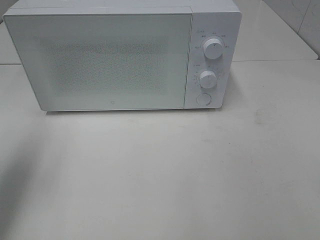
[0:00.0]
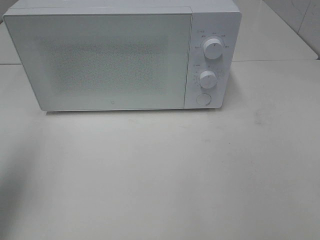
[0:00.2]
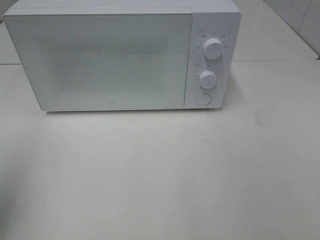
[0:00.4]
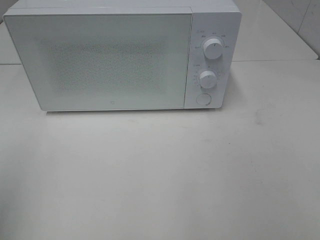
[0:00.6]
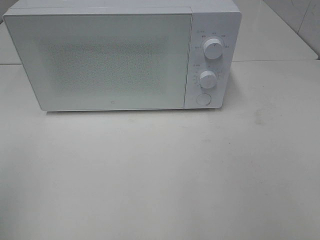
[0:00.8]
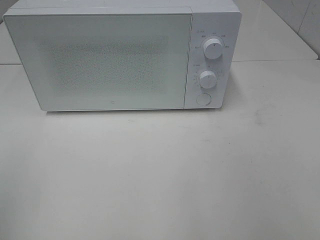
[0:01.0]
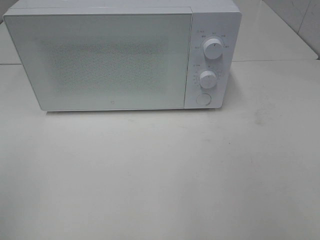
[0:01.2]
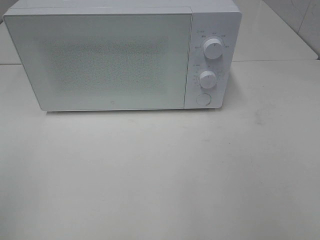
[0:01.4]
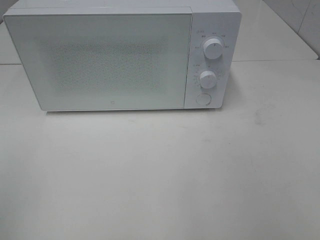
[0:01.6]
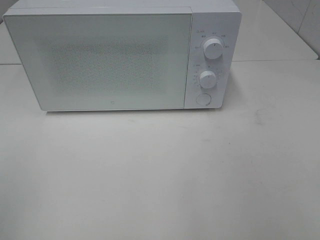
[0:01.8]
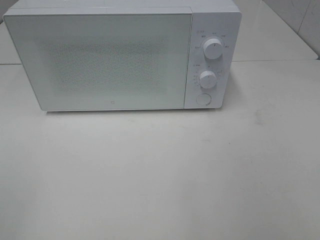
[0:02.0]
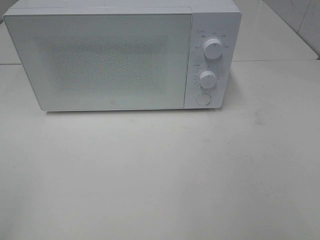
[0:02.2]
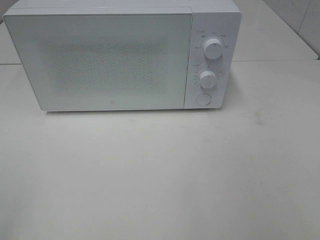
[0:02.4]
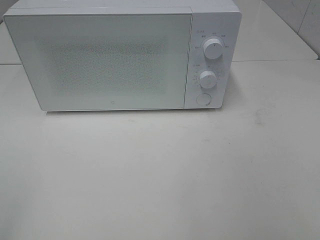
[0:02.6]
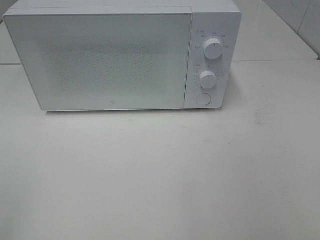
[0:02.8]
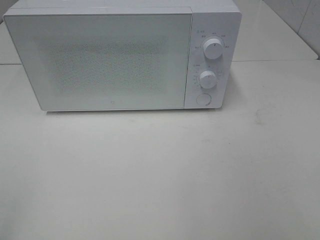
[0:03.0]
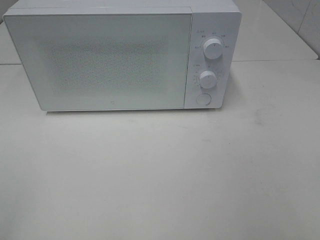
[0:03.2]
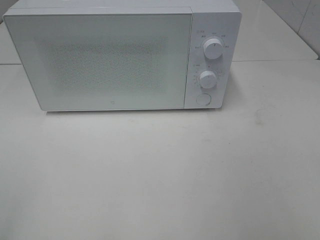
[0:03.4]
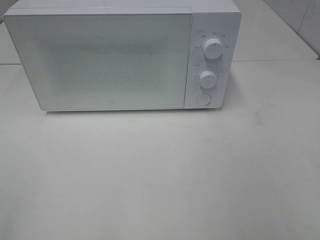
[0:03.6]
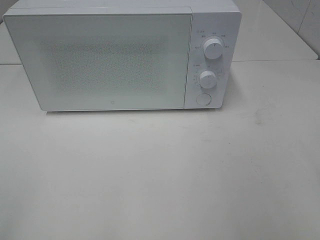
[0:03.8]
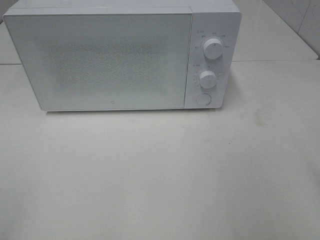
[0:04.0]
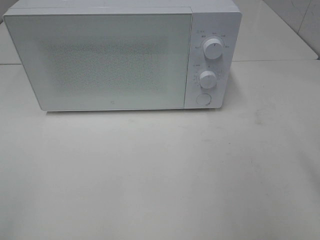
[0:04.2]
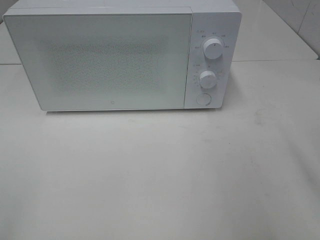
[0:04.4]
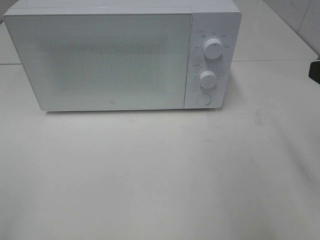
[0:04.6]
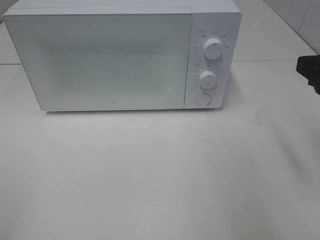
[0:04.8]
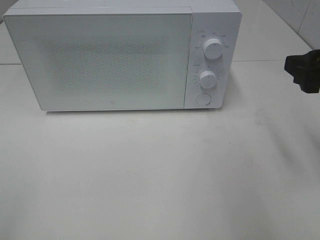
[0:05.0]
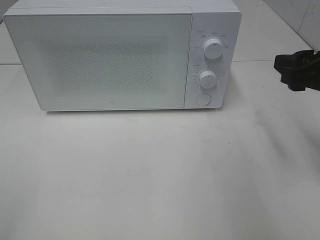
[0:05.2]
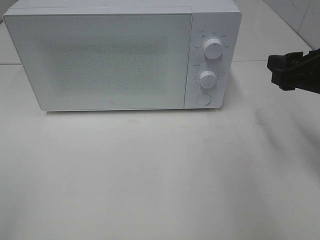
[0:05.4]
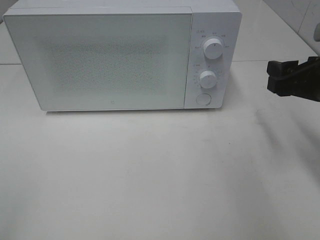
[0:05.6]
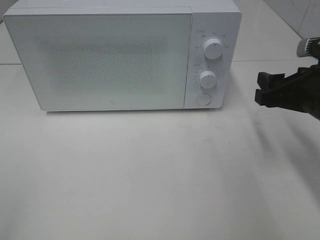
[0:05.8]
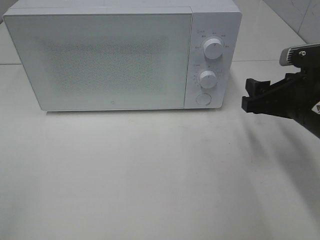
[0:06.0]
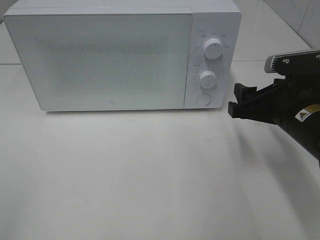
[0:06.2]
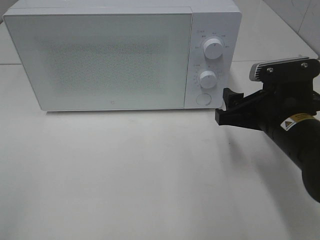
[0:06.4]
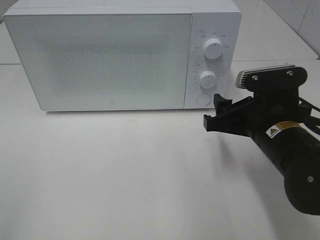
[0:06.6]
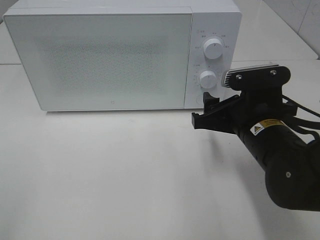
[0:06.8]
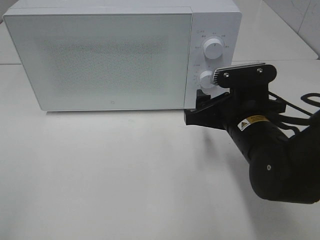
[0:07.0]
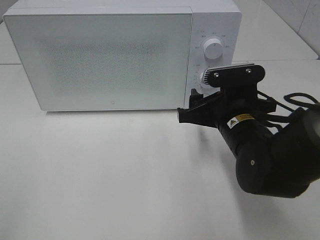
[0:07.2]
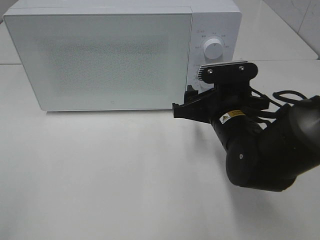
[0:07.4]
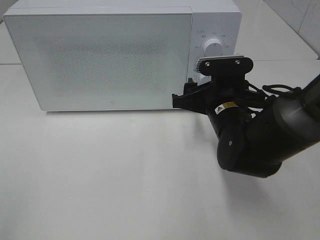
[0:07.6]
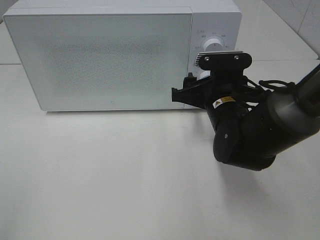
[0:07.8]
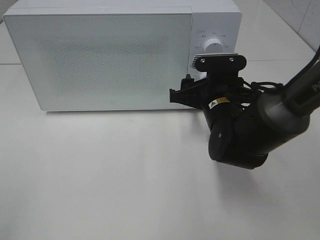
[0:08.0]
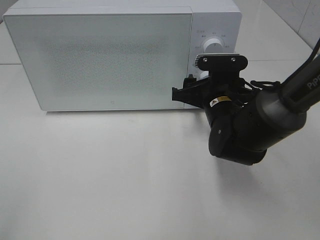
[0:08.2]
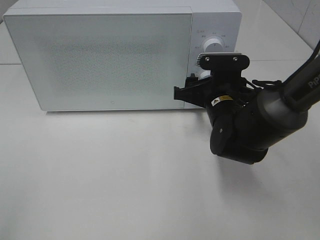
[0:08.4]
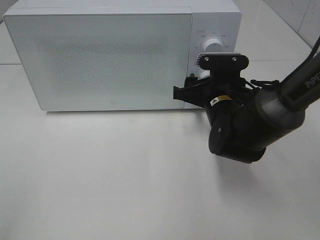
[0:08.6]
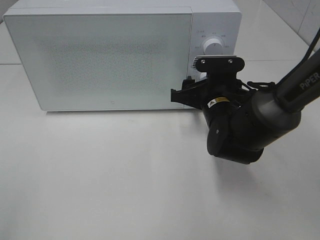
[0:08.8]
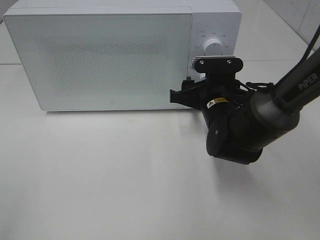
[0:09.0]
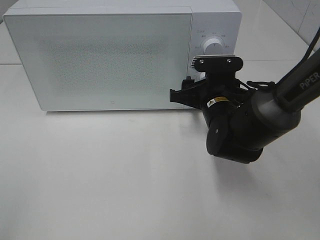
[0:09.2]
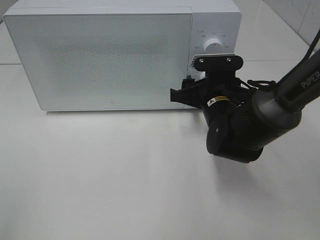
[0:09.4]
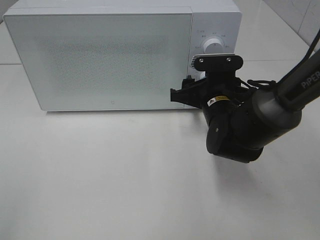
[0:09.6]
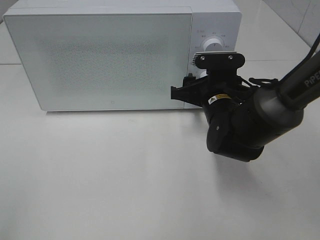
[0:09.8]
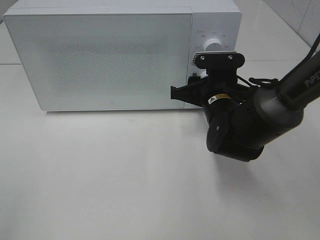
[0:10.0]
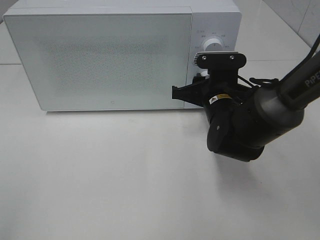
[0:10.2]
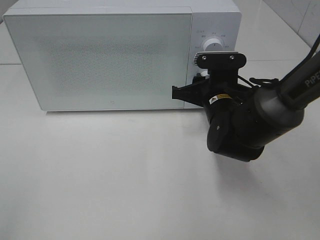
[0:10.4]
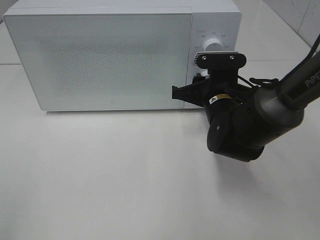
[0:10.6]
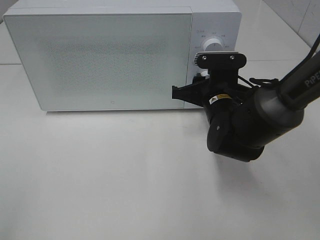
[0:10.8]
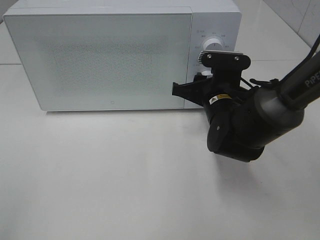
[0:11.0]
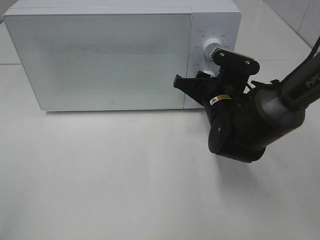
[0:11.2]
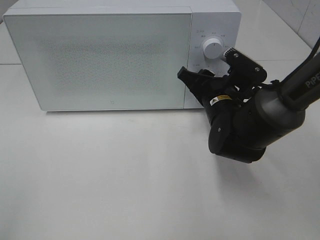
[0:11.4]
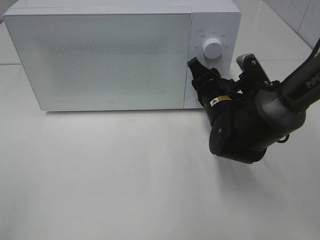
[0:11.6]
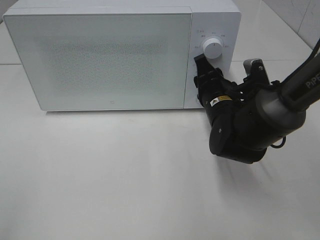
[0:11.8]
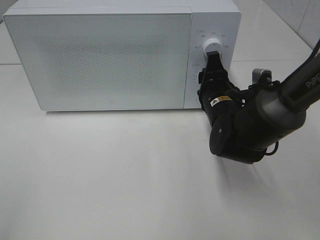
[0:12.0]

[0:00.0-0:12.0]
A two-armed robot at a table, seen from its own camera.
Task of the whole recording: Heat the burger.
0:00.0 to 0:01.6: The left gripper shifts roughly 15 cm backward.
0:04.4 to 0:06.0: The right gripper shifts about 15 cm downward and forward.
0:06.0 to 0:07.6: The right gripper moves to the left, roughly 10 cm.
0:07.6 to 0:09.0: The grippers stay close to where they were, moving slightly.
0:09.0 to 0:10.4: Neither gripper changes place.

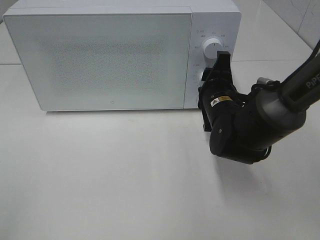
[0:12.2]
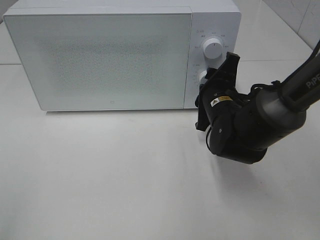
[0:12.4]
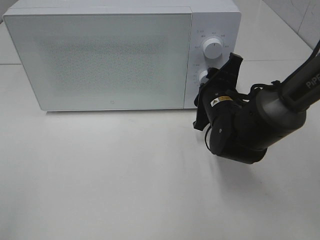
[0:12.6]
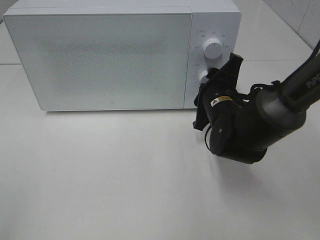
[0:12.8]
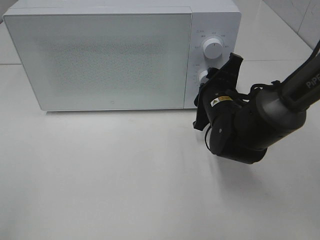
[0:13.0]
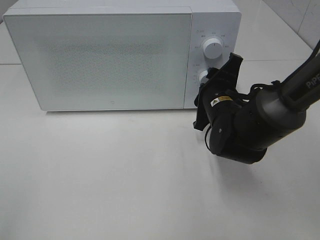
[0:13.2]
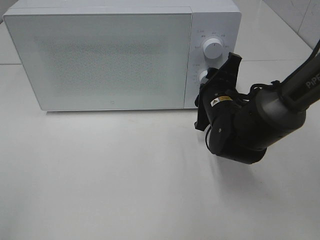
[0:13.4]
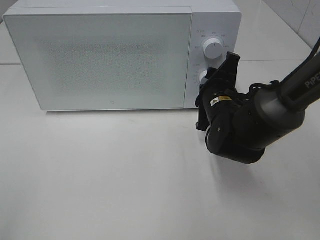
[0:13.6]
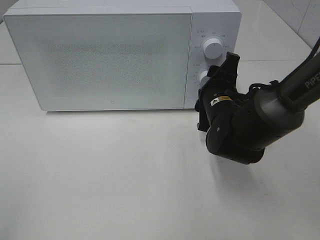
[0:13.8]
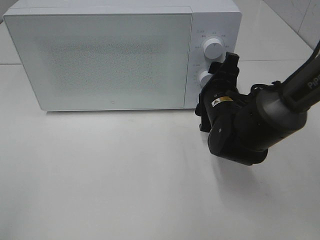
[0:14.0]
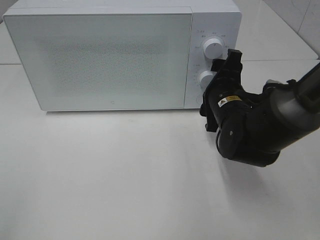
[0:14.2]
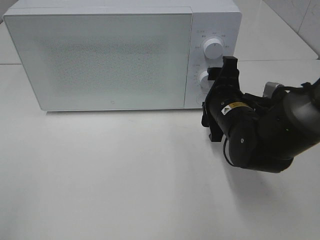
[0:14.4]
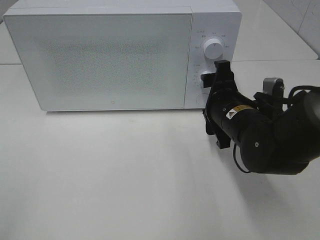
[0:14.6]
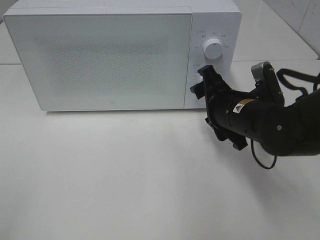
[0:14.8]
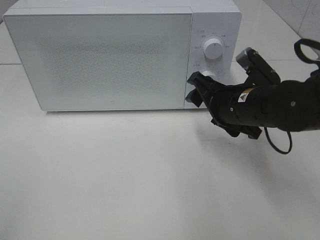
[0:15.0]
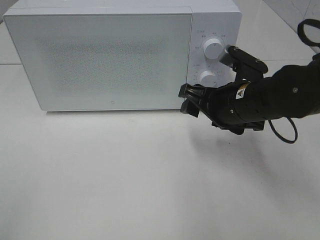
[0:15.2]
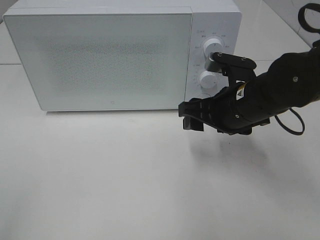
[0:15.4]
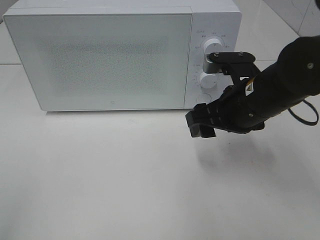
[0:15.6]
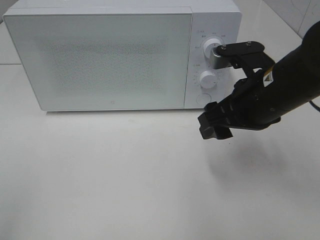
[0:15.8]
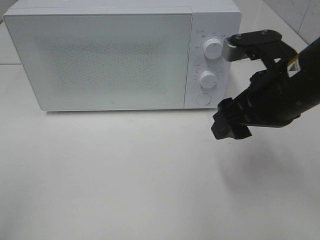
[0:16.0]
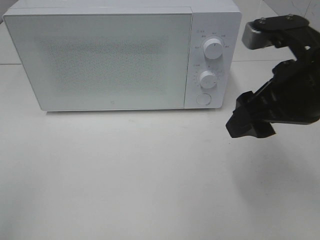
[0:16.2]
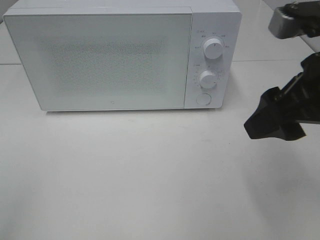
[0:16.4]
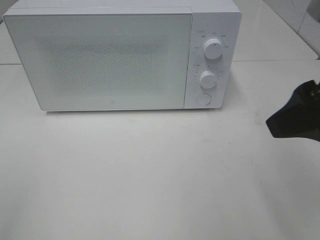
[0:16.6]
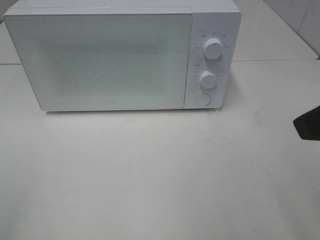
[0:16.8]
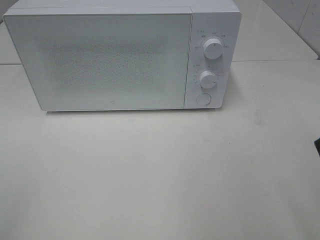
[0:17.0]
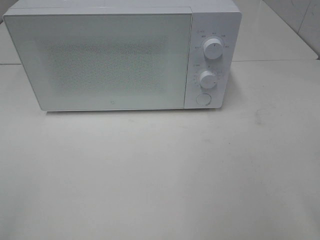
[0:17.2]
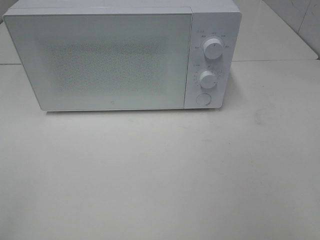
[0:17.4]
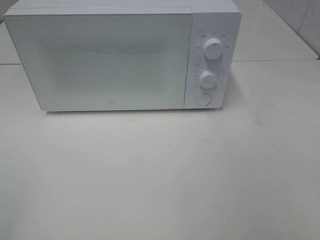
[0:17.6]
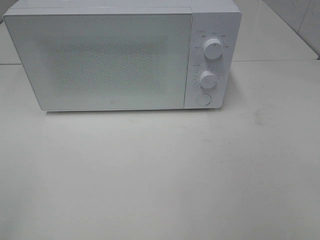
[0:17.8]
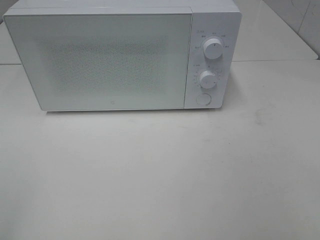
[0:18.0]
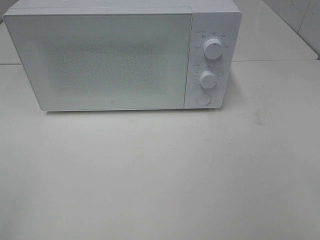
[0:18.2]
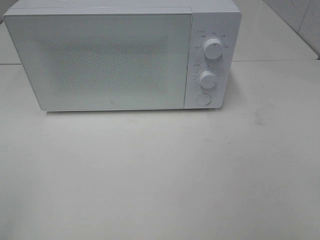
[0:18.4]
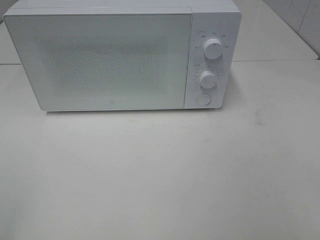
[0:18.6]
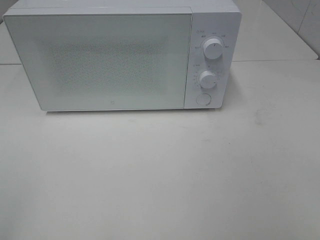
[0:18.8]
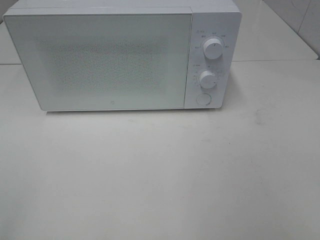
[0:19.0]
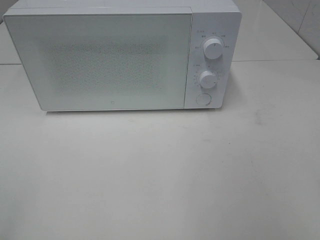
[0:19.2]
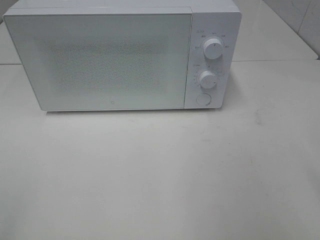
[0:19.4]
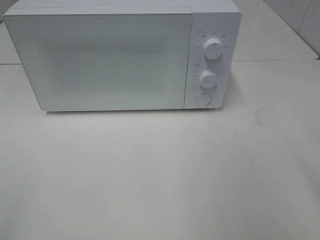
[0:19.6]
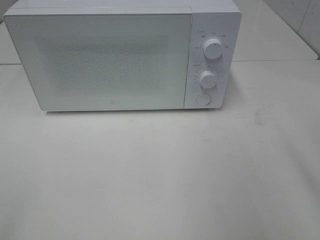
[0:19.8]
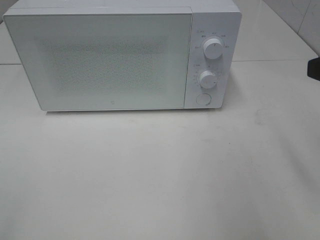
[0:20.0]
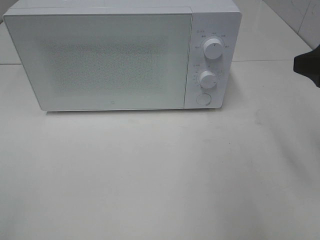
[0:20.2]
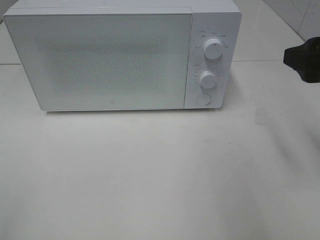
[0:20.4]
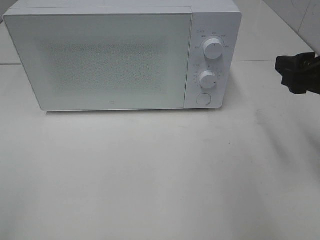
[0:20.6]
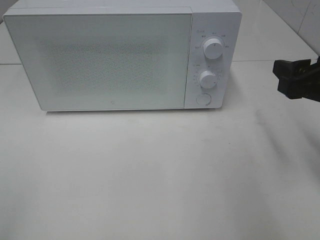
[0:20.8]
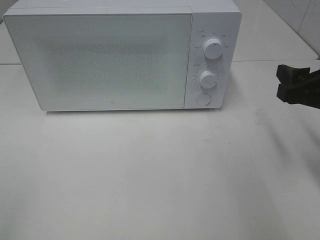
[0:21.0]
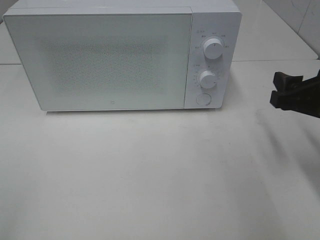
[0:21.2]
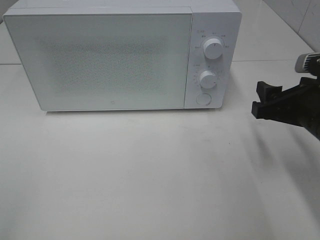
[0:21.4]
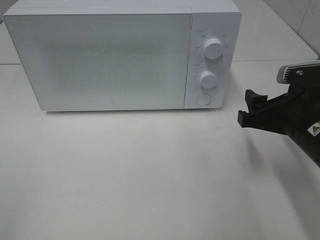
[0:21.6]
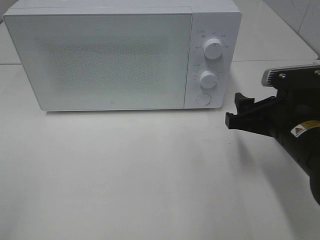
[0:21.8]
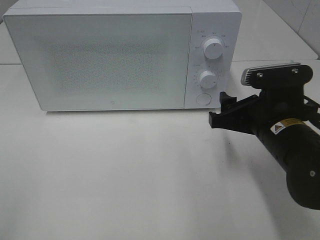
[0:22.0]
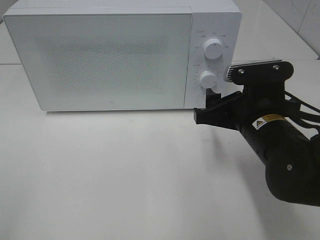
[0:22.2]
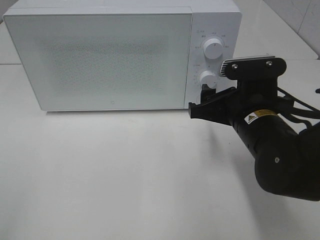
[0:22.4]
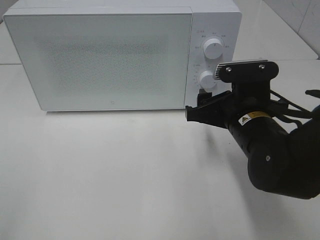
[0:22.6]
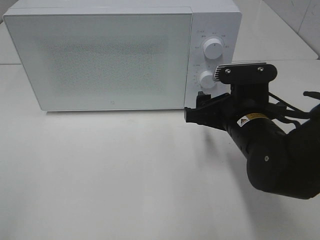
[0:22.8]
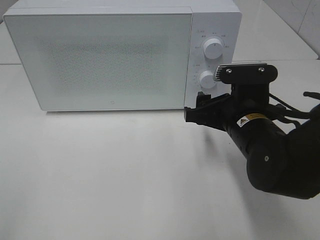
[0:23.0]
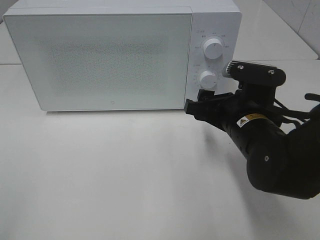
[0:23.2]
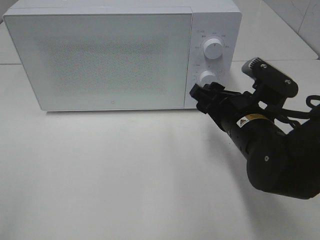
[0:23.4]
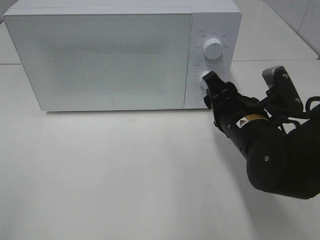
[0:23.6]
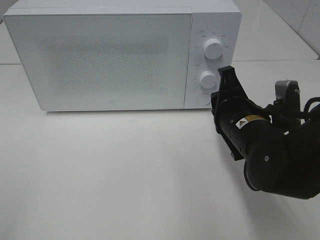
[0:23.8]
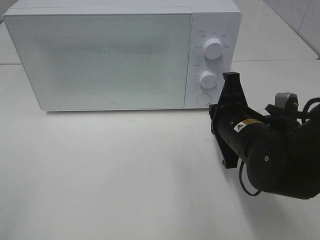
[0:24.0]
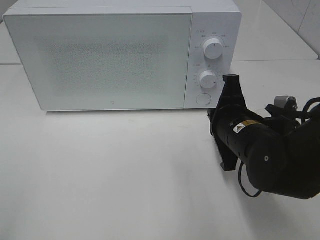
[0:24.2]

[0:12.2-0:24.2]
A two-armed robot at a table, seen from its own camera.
Task of the whole recording: Heat the burger.
0:12.2 to 0:13.8: The grippers make only small movements.
0:13.8 to 0:15.2: The right gripper shifts by about 5 cm.
0:15.2 to 0:16.6: The right gripper moves upward, backward and to the right, some 20 cm.
0:16.6 to 0:18.2: The right gripper shifts roughly 15 cm backward and to the right.
0:19.8 to 0:21.2: The right gripper shifts some 15 cm downward and forward.
0:21.2 to 0:22.6: The right gripper moves to the left, roughly 10 cm.
0:22.6 to 0:24.2: The right gripper closes up.
